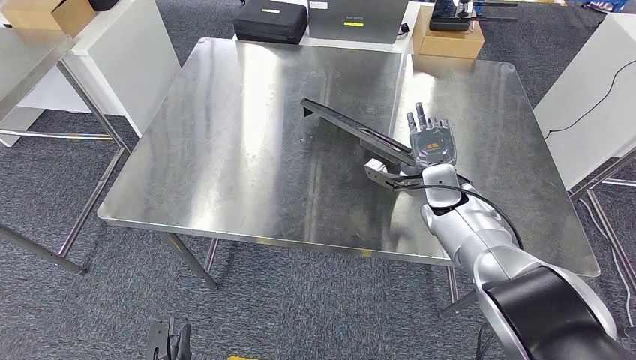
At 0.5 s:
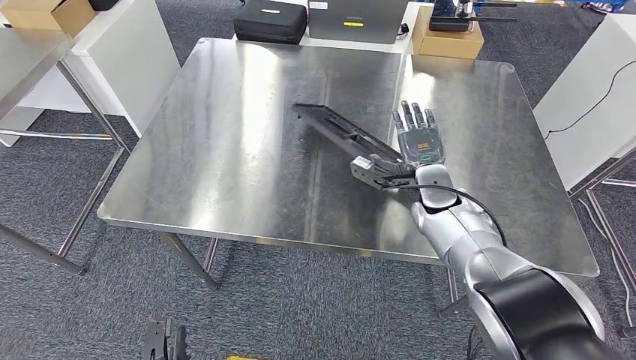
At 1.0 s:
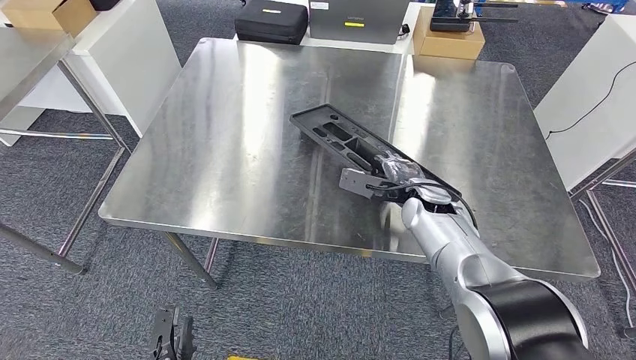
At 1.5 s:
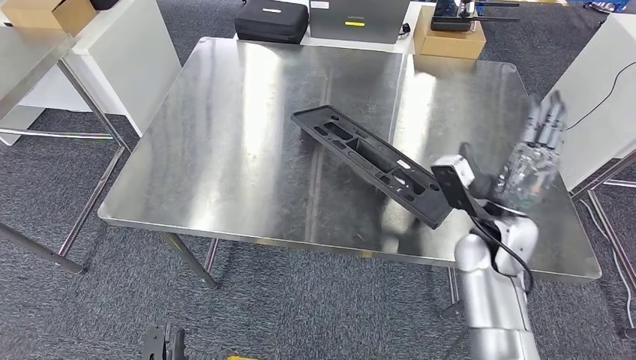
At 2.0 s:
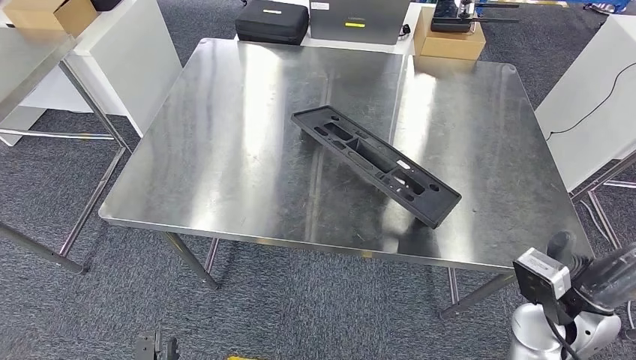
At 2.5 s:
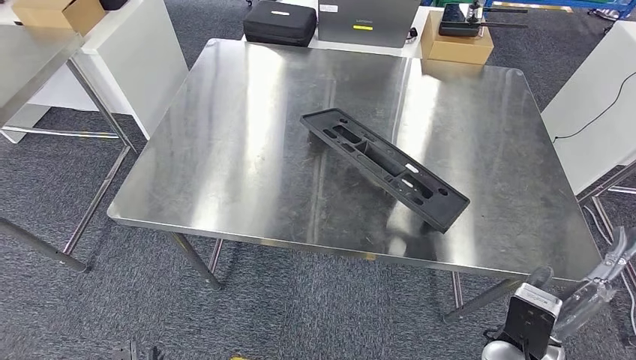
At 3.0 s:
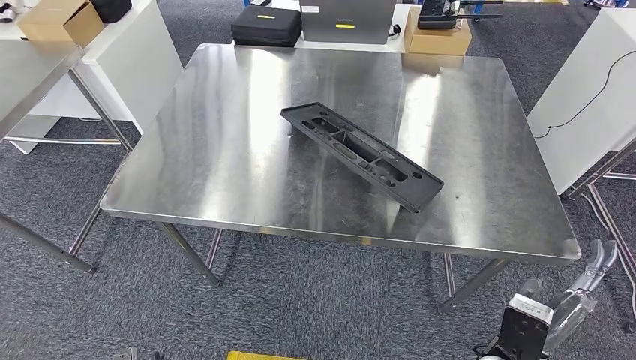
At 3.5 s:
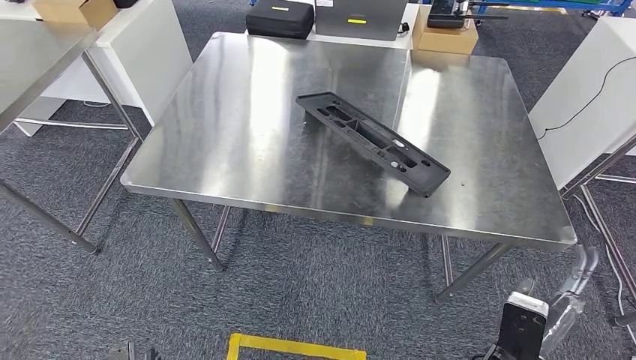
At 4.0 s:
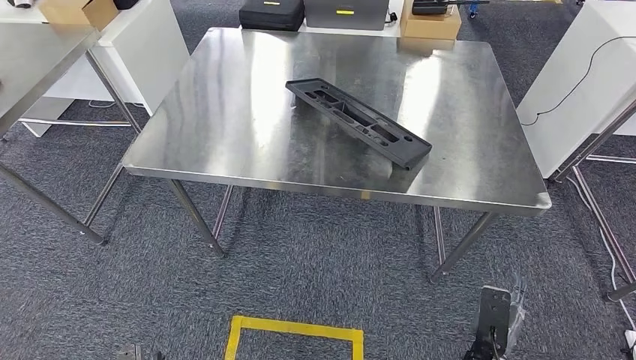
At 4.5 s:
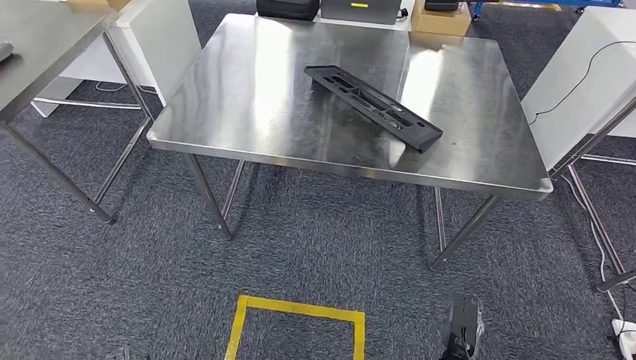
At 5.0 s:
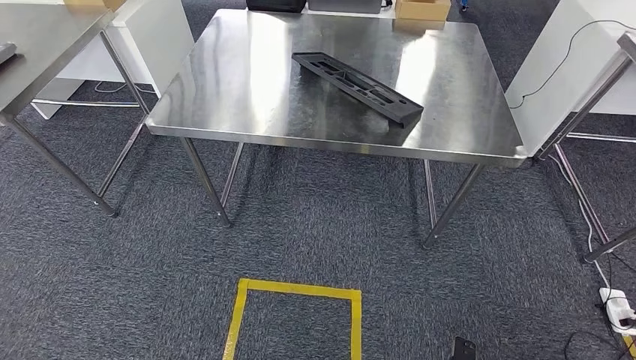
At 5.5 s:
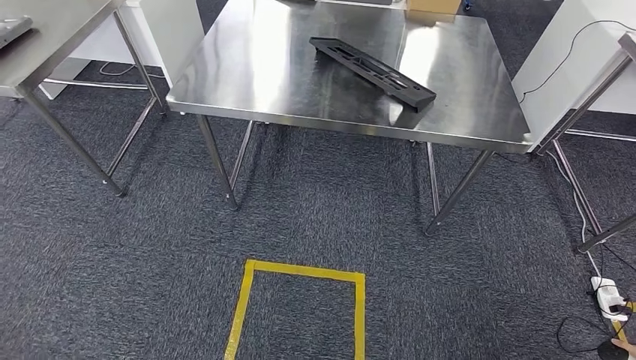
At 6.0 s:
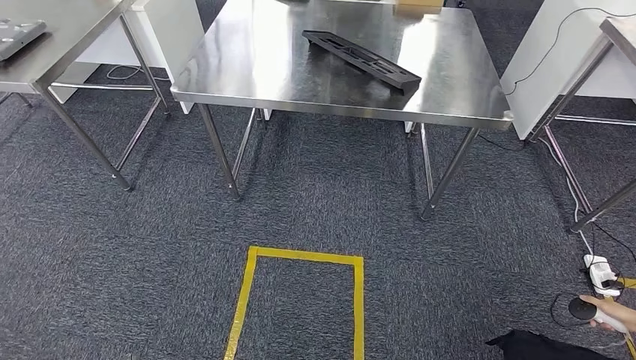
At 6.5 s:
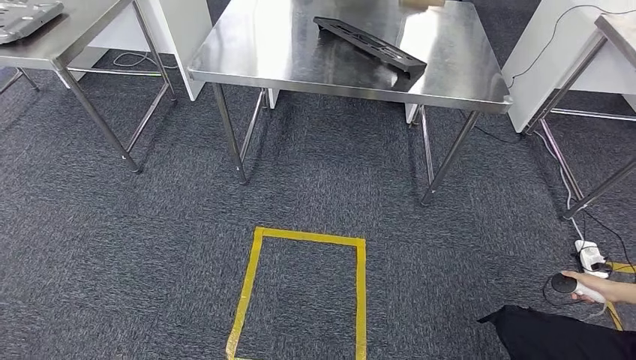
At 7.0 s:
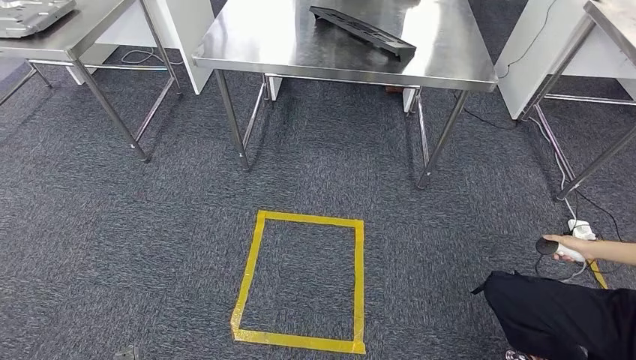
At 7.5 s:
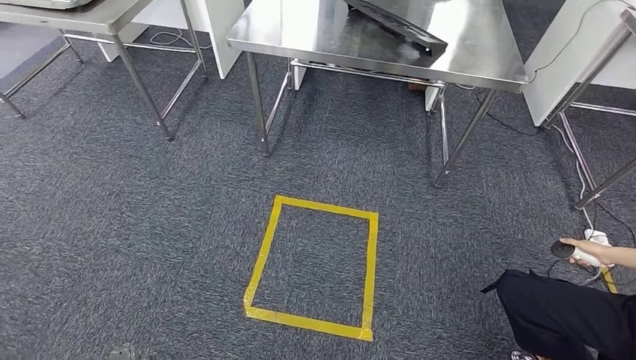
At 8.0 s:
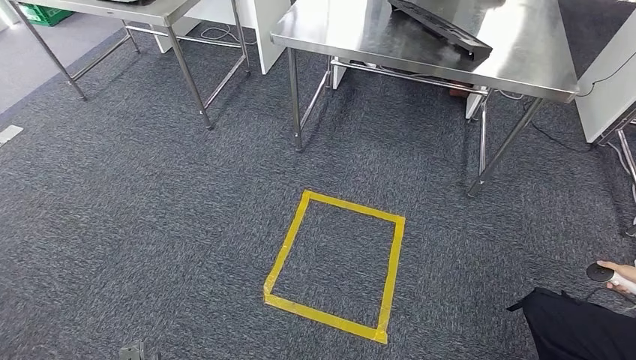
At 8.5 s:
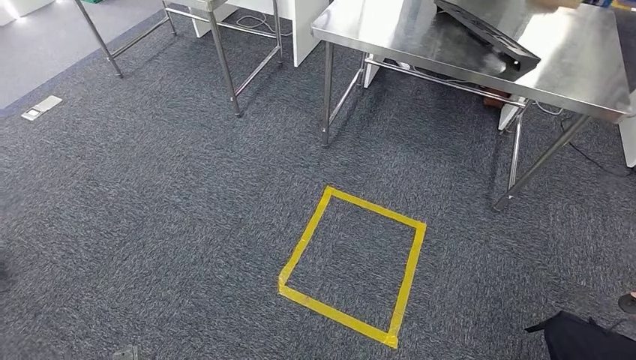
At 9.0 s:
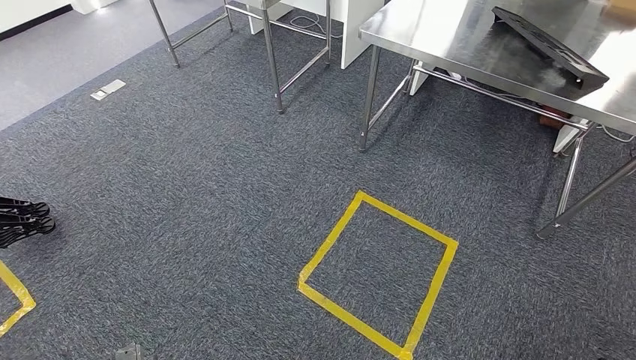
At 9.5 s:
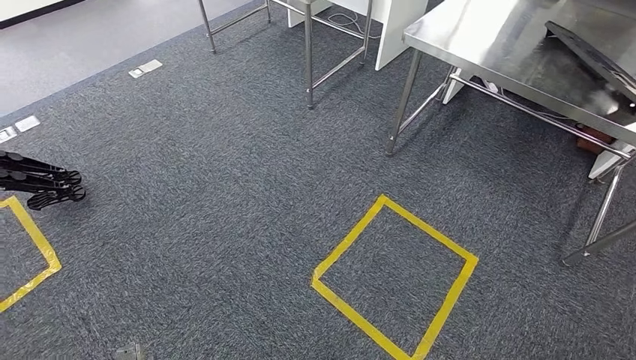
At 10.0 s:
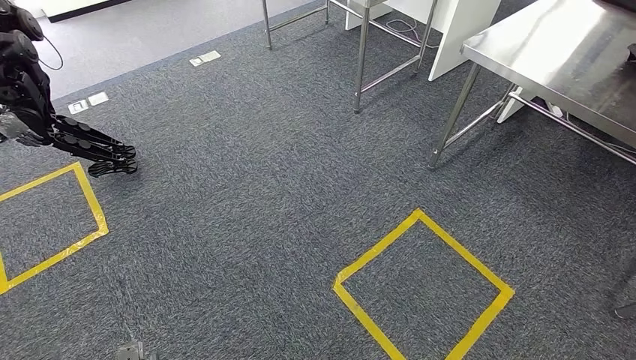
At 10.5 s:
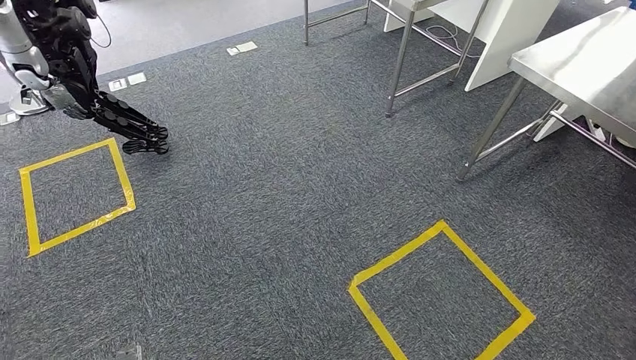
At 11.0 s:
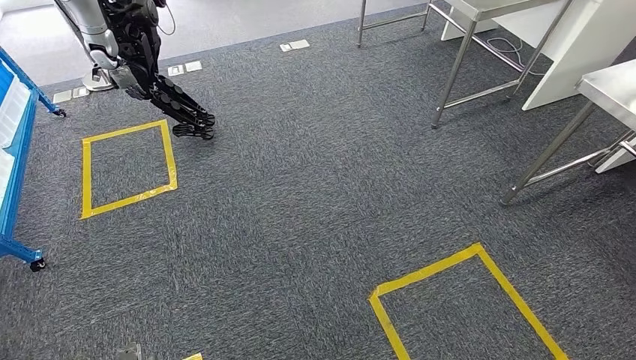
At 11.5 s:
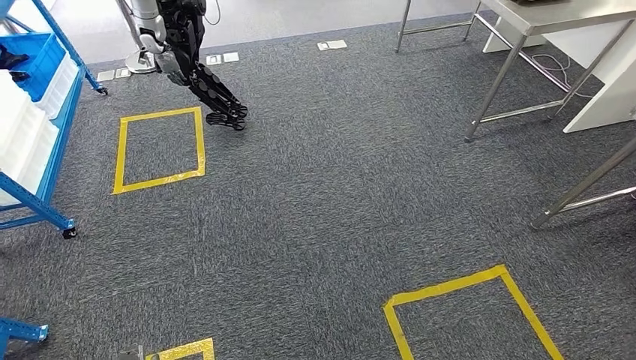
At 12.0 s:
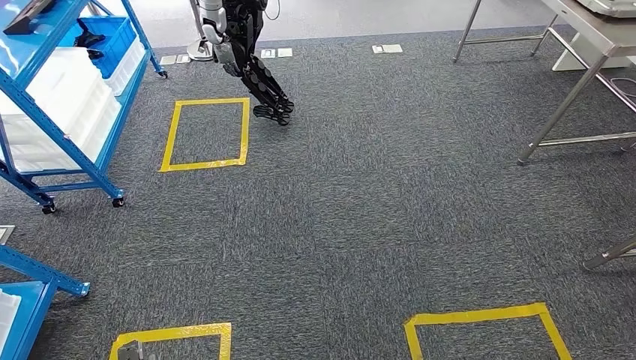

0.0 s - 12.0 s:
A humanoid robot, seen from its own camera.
Step, 0.0 s - 2.5 s: Insert the large material into the corresponding slot on the workbench.
0.0 s - 2.0 s: The right hand moves backward, about 20 cm.

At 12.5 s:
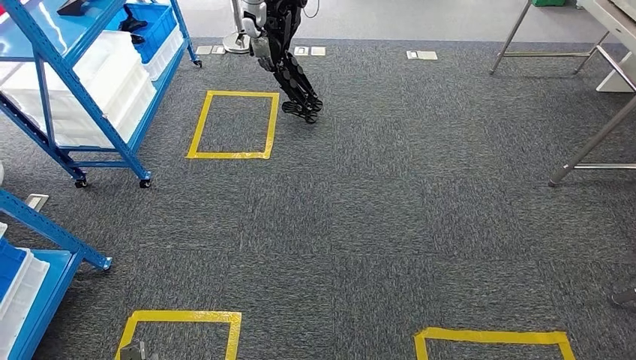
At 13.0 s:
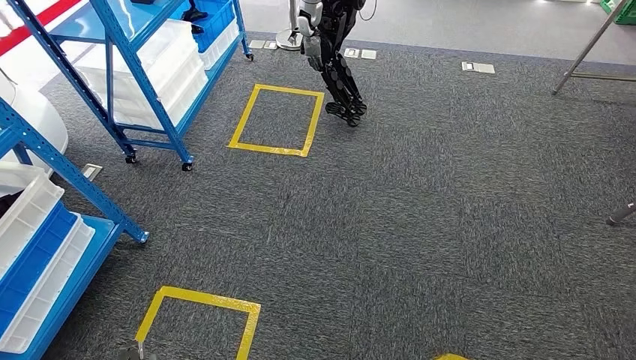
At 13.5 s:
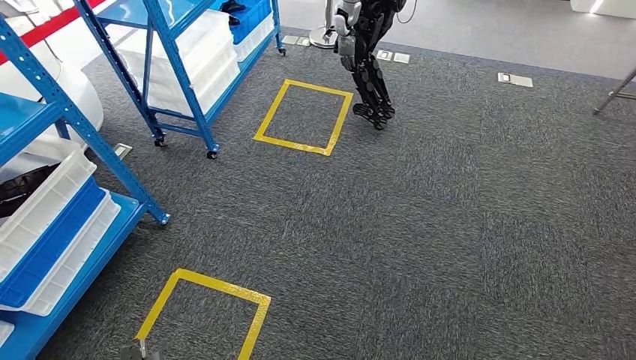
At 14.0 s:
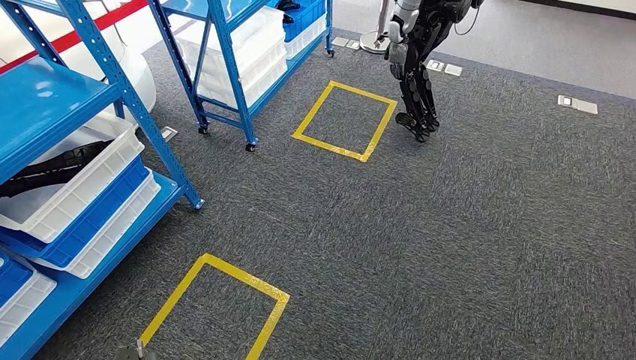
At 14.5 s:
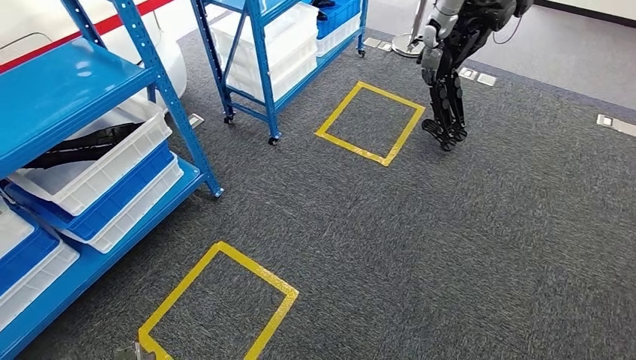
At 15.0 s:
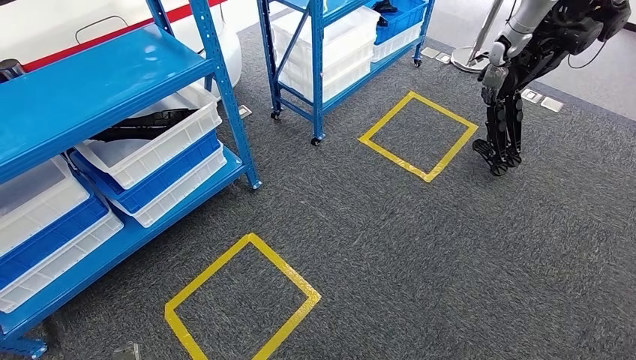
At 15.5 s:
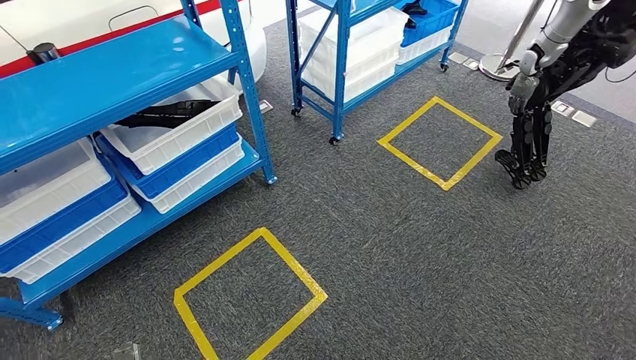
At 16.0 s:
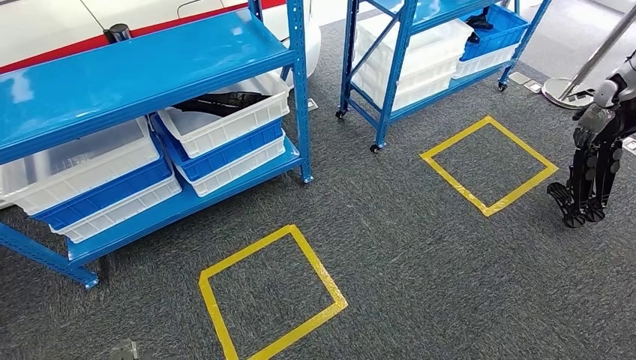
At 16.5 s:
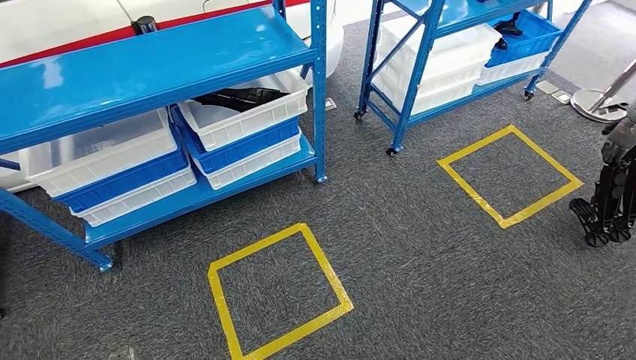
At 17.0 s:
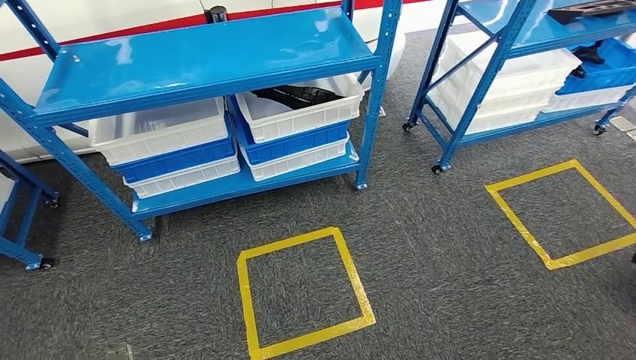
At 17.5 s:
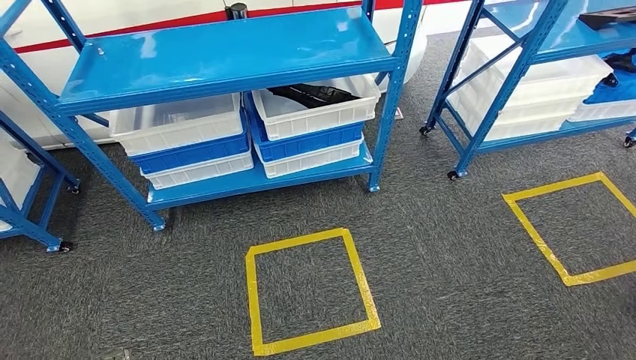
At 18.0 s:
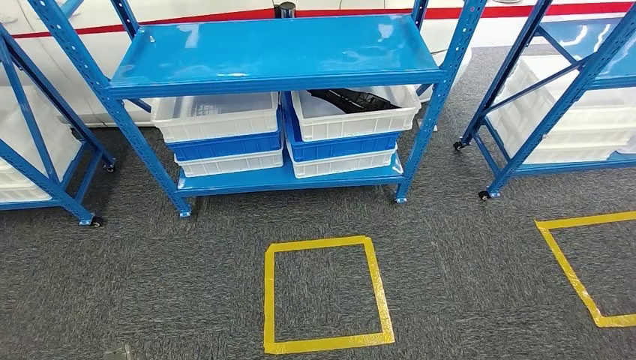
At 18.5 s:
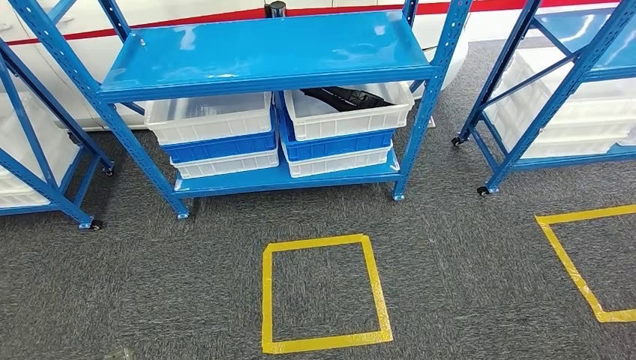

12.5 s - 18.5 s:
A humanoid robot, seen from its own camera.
Step, 12.5 s - 18.5 s: Move to the initial position of the shelf.
